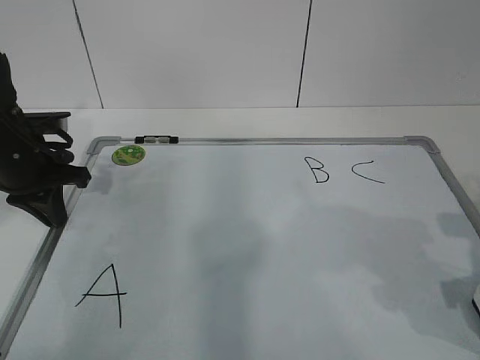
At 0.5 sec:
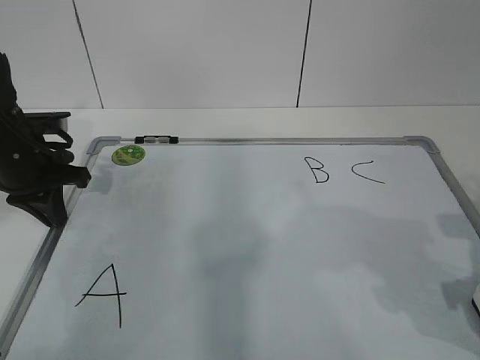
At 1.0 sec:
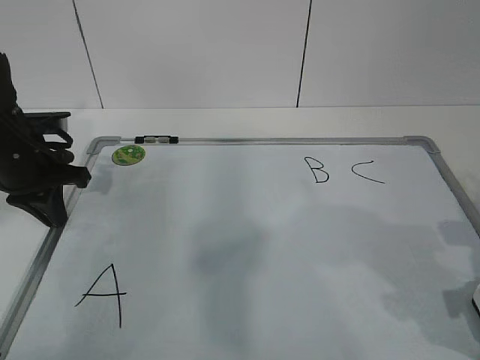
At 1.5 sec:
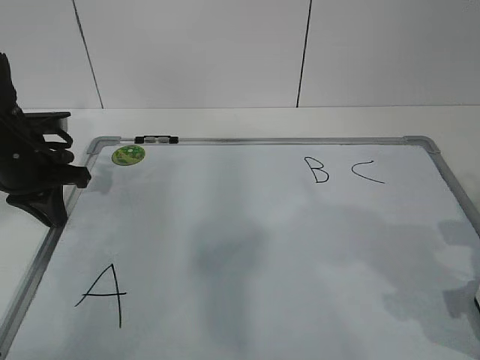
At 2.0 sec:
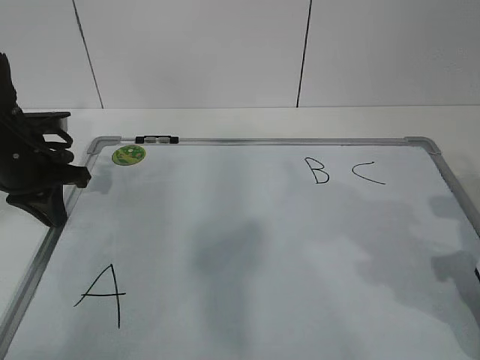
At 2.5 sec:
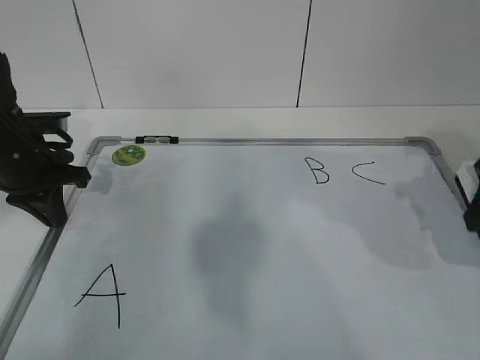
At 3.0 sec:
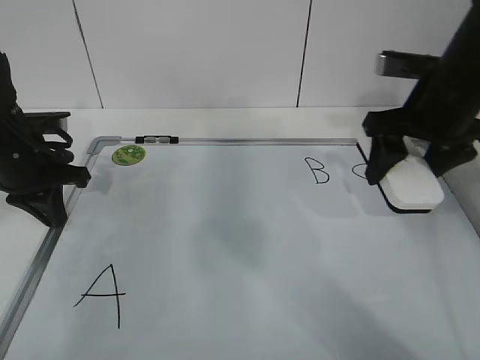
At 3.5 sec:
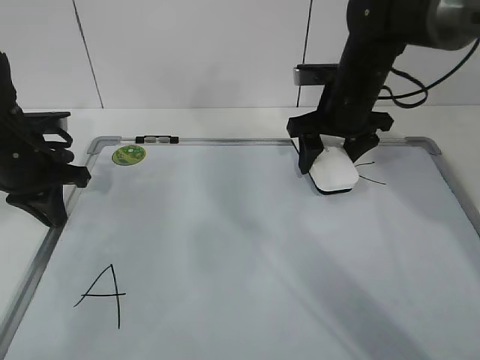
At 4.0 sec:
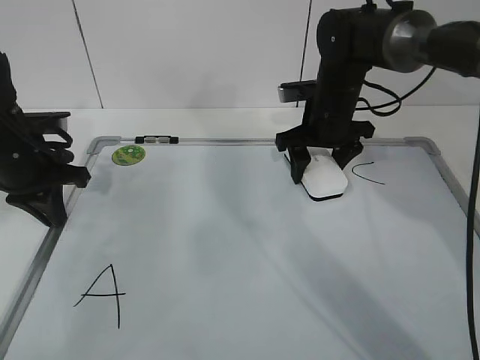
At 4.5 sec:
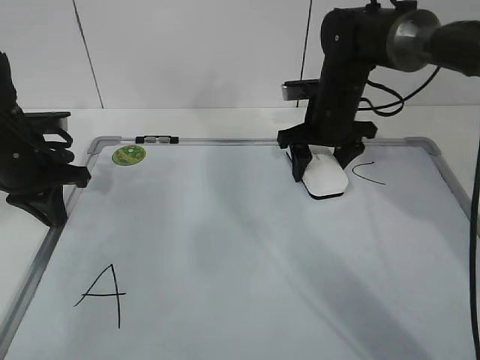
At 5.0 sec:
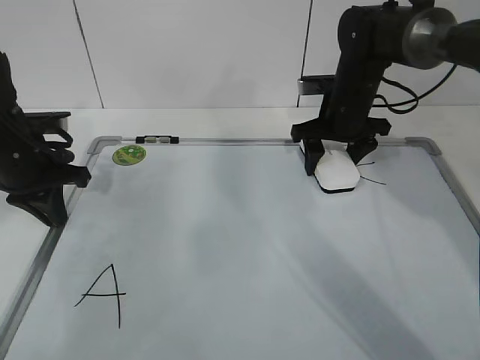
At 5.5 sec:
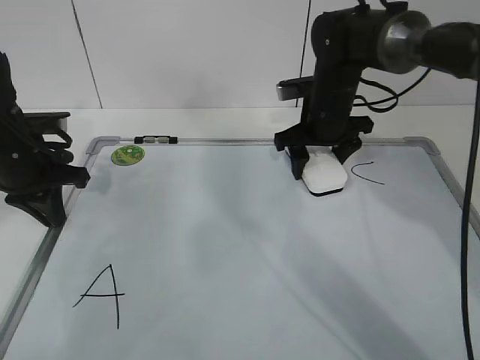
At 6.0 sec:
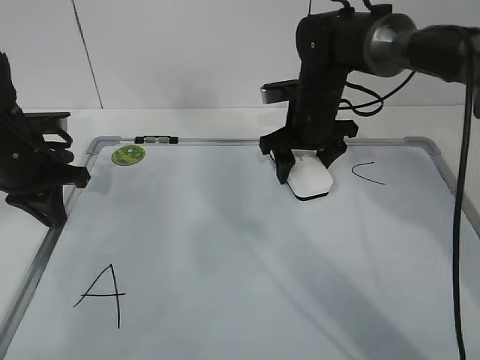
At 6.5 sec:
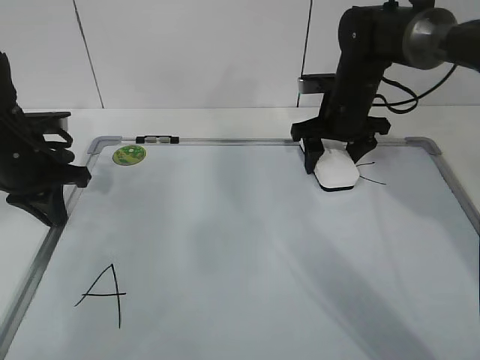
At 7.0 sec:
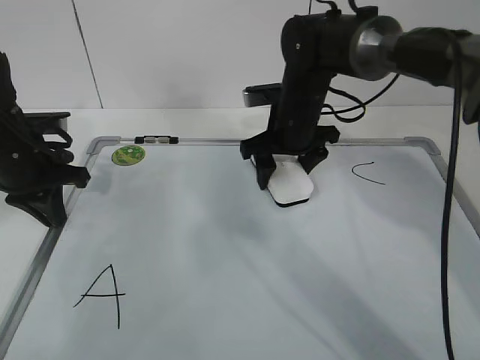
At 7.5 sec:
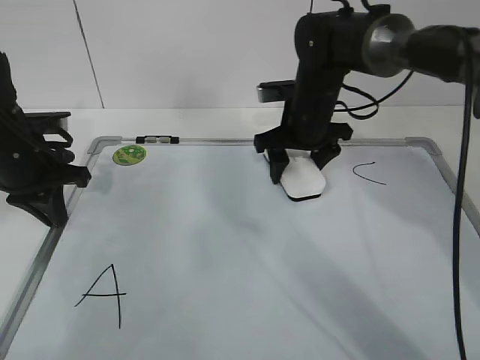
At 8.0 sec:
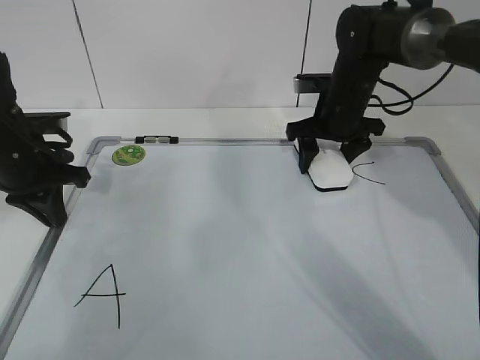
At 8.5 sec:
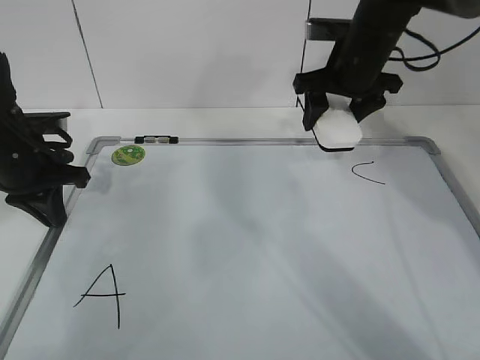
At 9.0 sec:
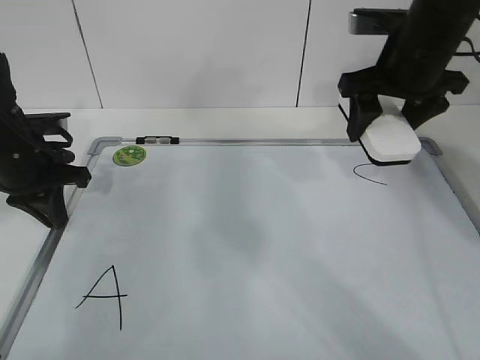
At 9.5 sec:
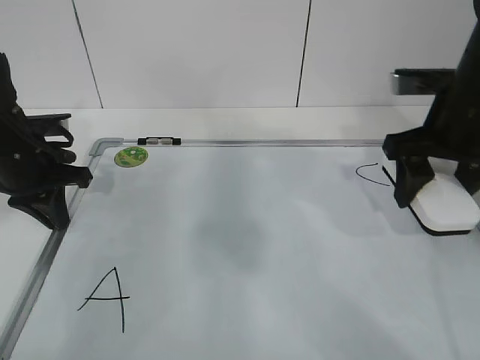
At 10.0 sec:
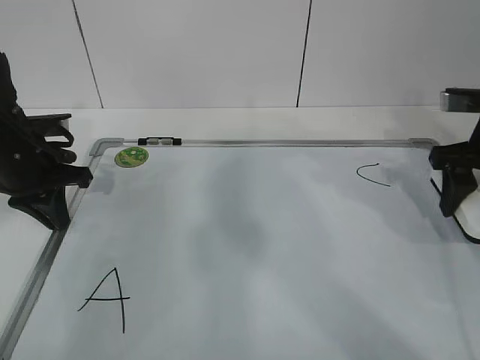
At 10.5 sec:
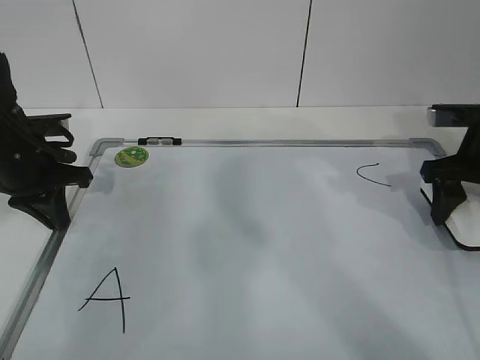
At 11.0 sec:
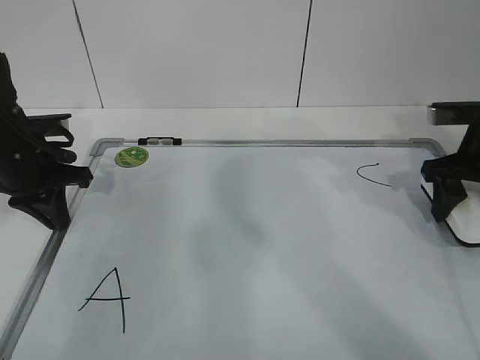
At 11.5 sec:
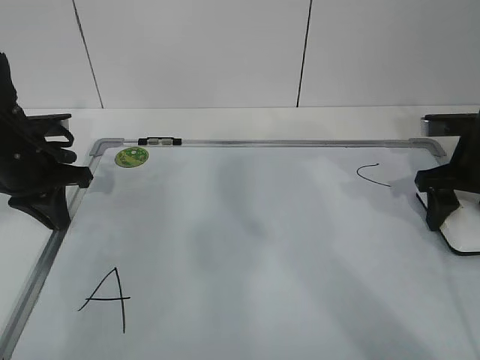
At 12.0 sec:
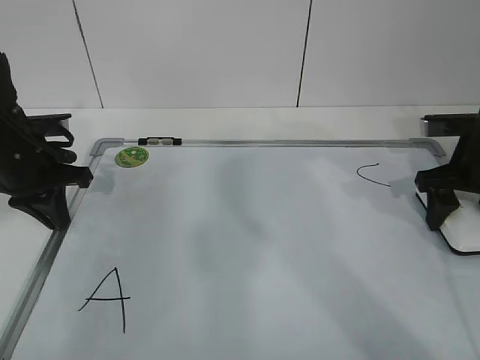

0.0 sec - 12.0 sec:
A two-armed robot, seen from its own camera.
Task of the whole recording: pick up the eraser on the blackboard and erase the letter "B".
Step, 0.0 sec - 5.0 sec: Erase the letter B with your right hand.
Step, 5.5 sec - 9.0 sec: Put down the eraser with your right hand.
0.0 sec - 2.0 sec: The right gripper closes up.
2.0 sec - 4.0 sec: The right gripper moves forward and to the left, approximately 30 cm.
4.0 sec - 6.0 sec: The grippers stay close to where they were, moving slightly.
6.0 sec - 8.0 sec: The right gripper moves left and right over approximately 10 cm, changing direction 2 times.
8.0 sec - 10.0 sec: The right gripper travels backward, to the right and upward by about 20 cm.
10.0 sec - 12.0 sec: The right gripper shifts roughly 5 cm downward.

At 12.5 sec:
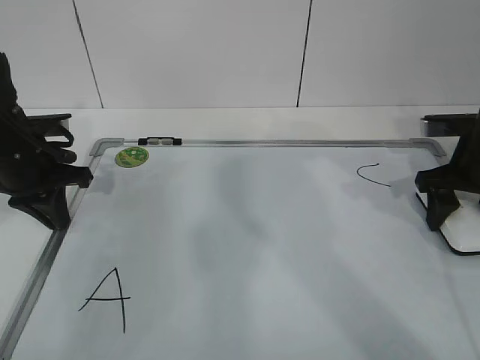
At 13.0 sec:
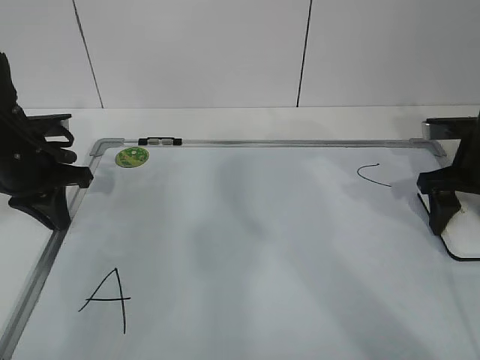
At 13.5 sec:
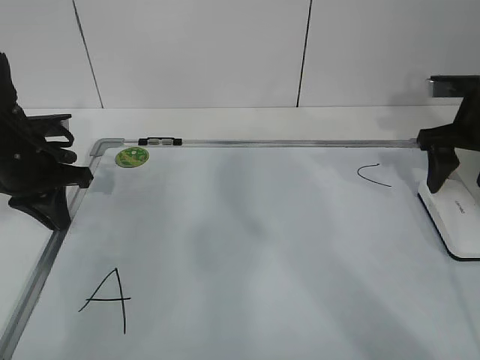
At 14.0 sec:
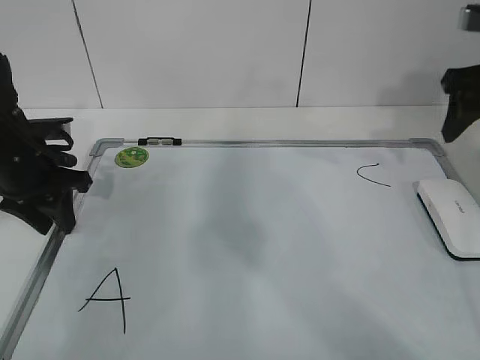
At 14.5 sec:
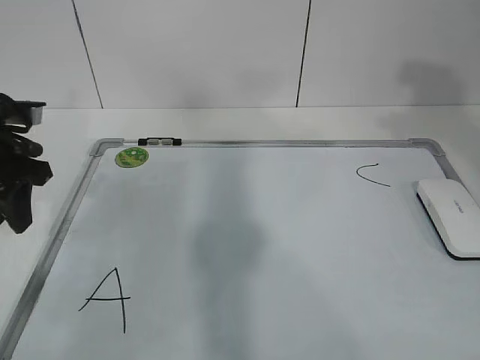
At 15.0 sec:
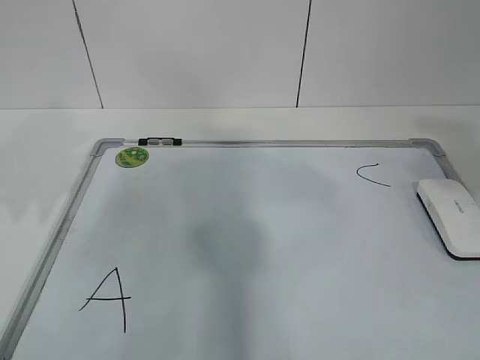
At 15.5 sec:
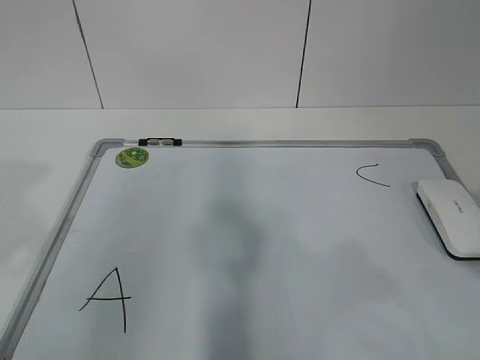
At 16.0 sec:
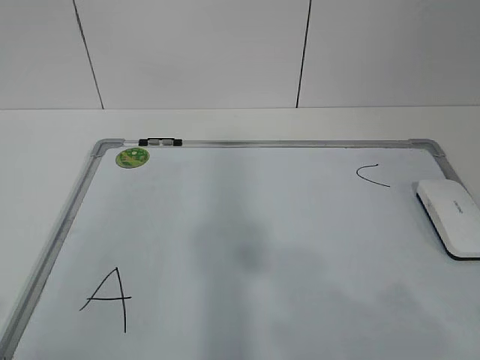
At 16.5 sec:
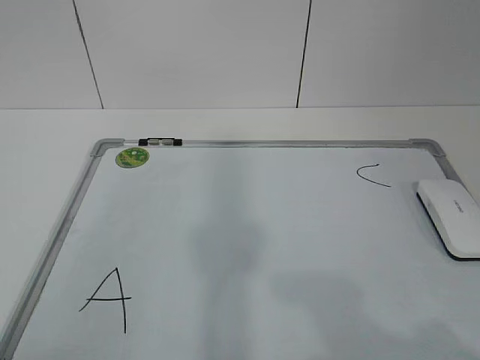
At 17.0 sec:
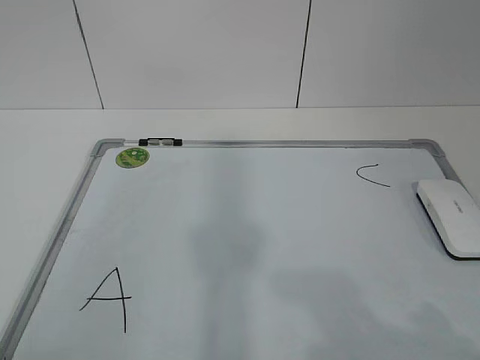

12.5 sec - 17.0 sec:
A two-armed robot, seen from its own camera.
Task of the whole recording: pick up the eraser on the blackboard and erase the letter "B".
12.5 sec - 14.5 sec: The left gripper goes approximately 5 cm upward, and opens its fingers, while the right gripper travels upward and backward by some 25 cm, and opens up.
14.5 sec - 17.0 sec: The left gripper goes approximately 35 cm backward, while the right gripper travels backward and downward by approximately 30 cm.

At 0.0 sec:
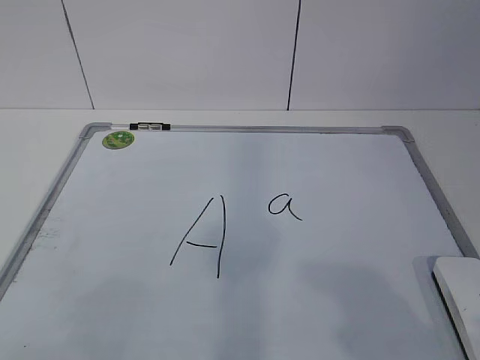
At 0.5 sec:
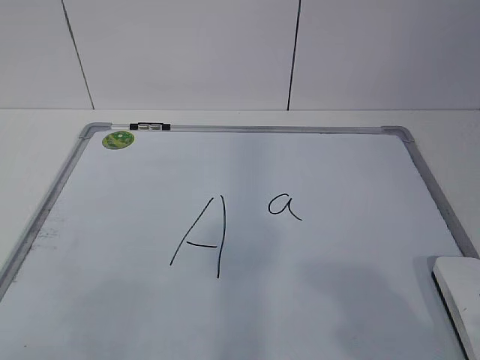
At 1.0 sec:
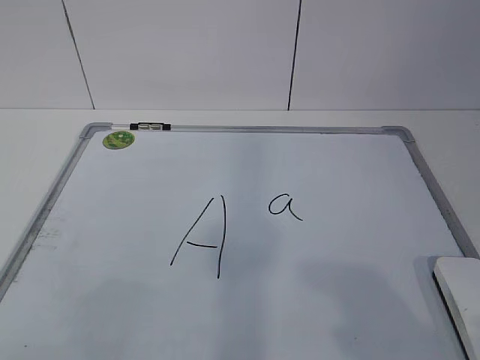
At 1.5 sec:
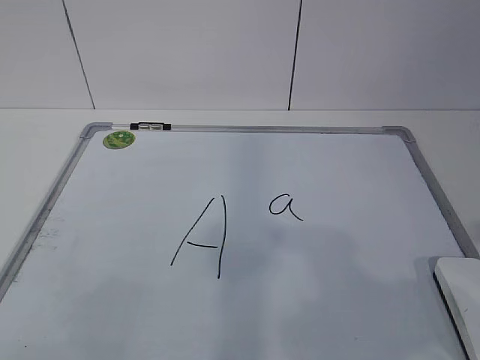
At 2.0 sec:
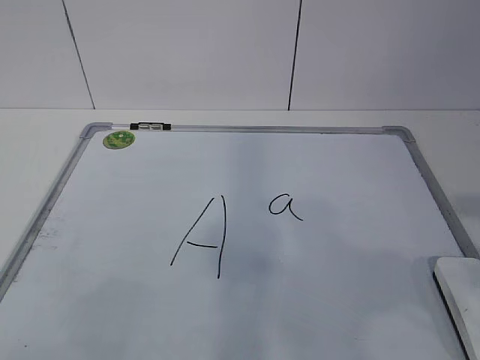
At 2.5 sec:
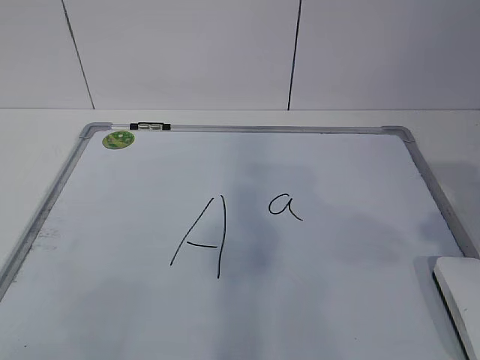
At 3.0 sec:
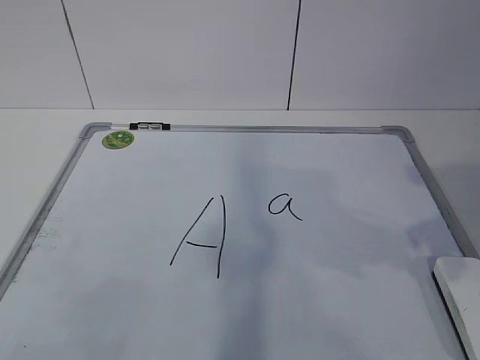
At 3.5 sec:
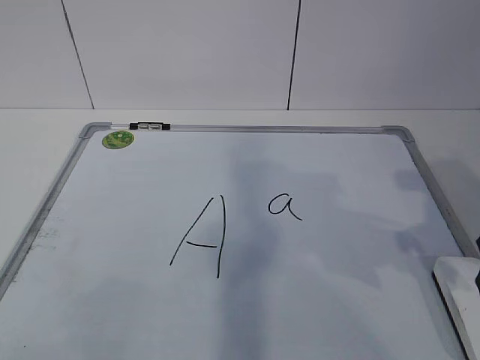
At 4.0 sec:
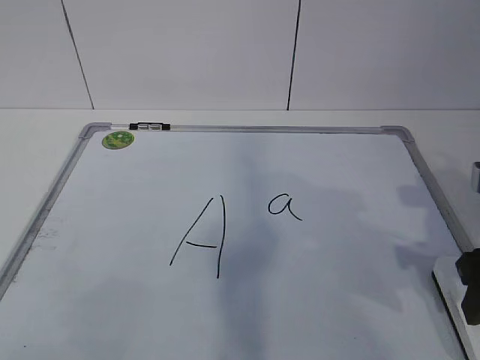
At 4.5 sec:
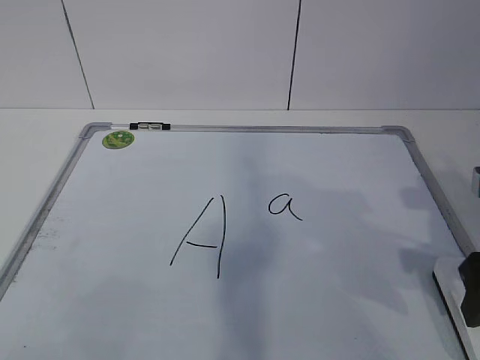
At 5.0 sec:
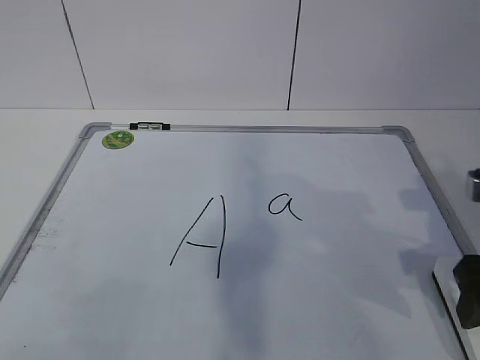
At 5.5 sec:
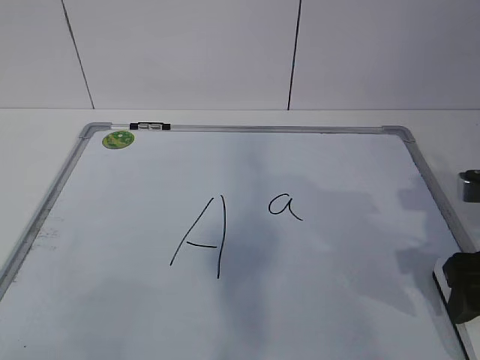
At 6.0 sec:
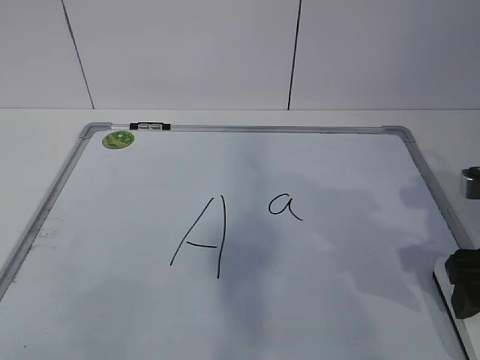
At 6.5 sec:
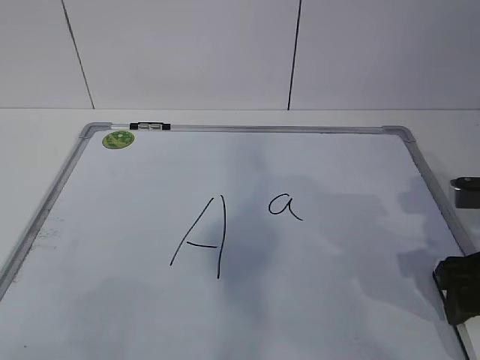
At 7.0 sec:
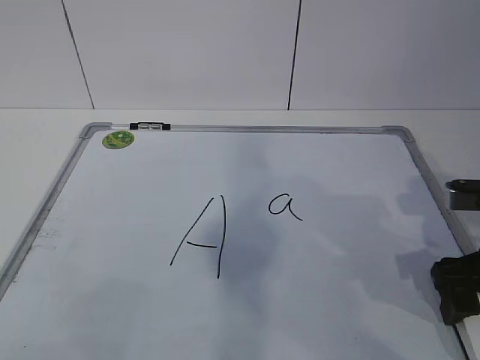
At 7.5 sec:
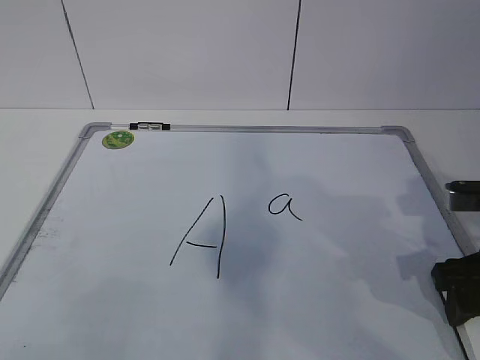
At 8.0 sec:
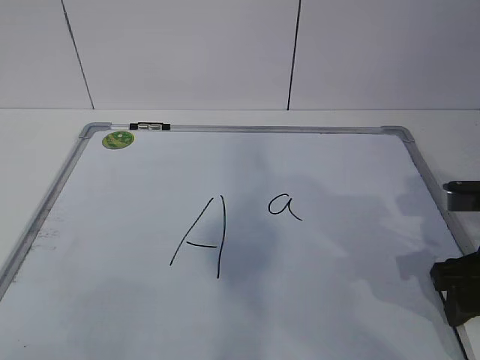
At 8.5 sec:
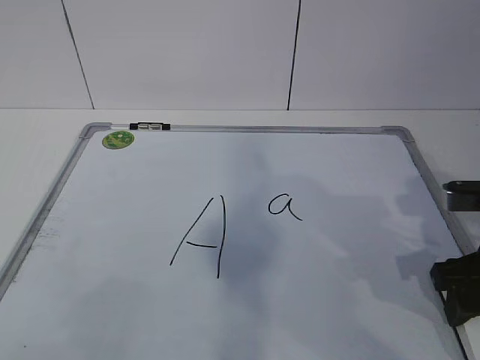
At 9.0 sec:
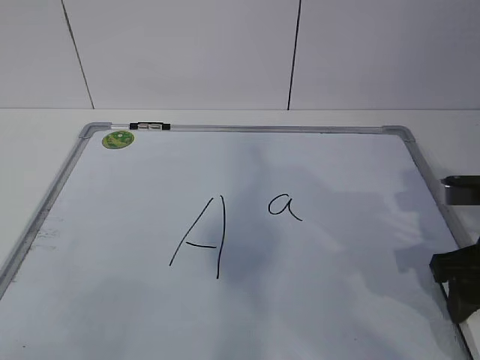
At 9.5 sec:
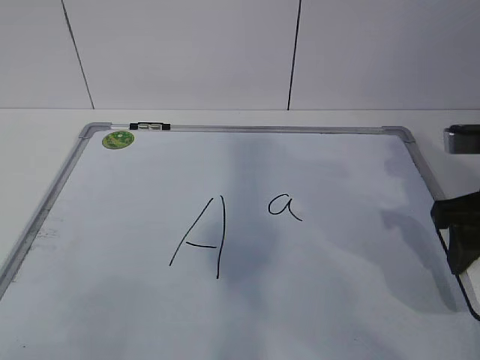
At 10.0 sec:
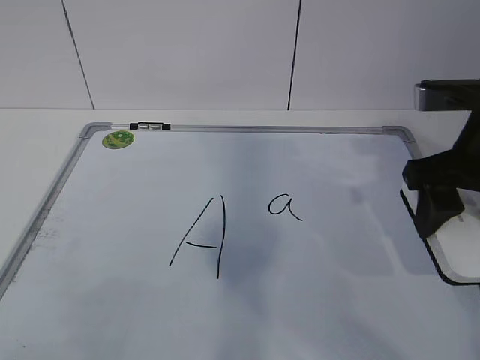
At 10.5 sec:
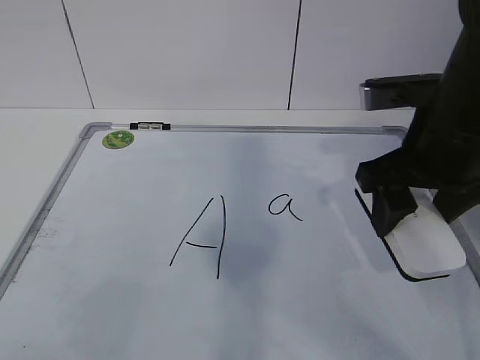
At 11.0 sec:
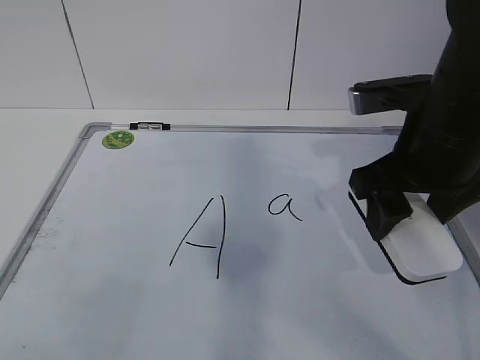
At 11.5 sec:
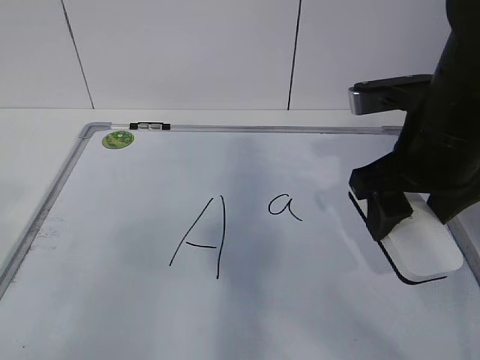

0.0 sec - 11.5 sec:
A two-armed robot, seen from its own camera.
Task of the whole recording: pick up the eraser on the blackboard and erase the letter "a".
Step, 0.0 sec - 6.0 sec: Grab the eraser with your right hand.
2.0 sec - 4.0 sec: The right gripper shifts roughly 15 cm forward and downward.
4.0 sec - 6.0 sec: The right gripper opens.
6.0 sec - 7.5 sec: The right gripper closes up.
7.5 sec - 9.5 sec: The right gripper heads upward, covering some 5 cm.
9.5 sec - 11.5 sec: The right gripper heads to the left, covering some 10 cm.
